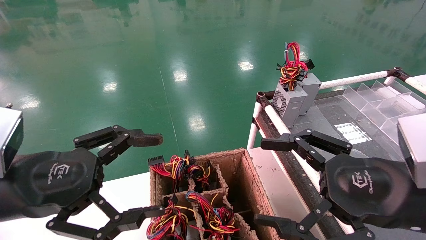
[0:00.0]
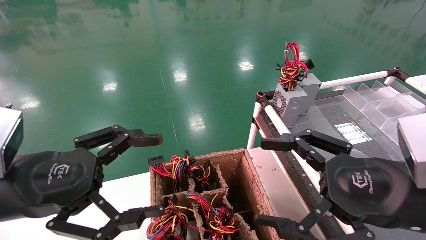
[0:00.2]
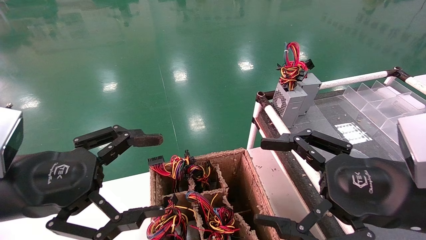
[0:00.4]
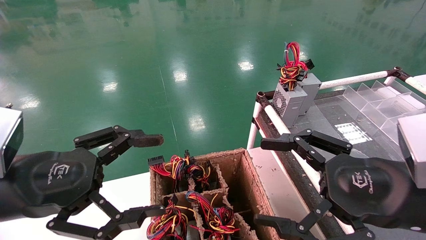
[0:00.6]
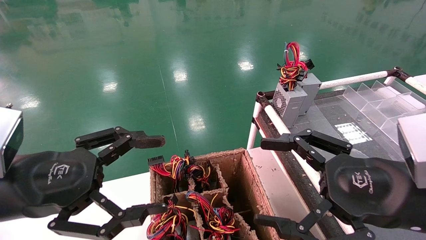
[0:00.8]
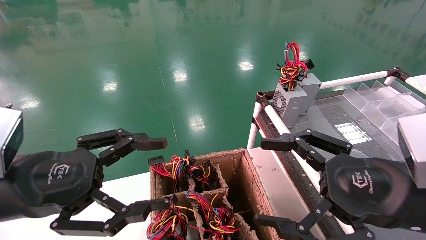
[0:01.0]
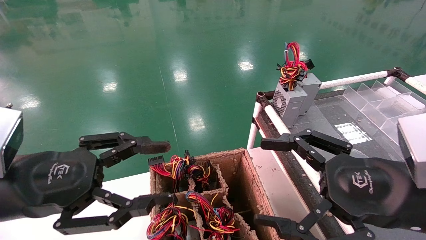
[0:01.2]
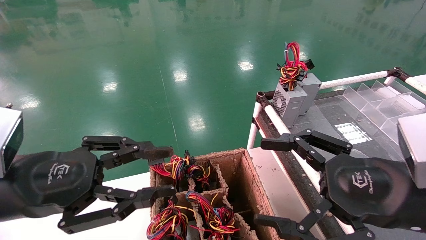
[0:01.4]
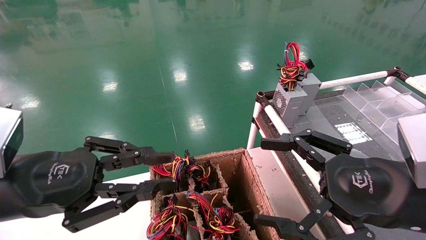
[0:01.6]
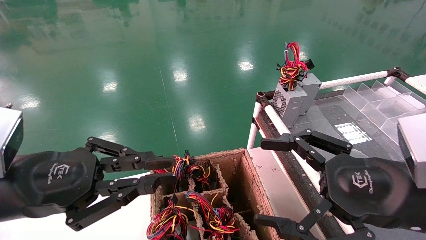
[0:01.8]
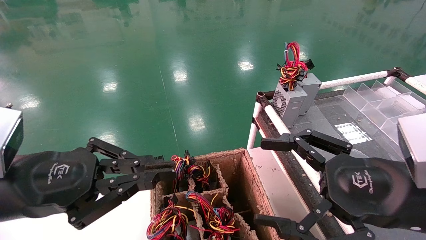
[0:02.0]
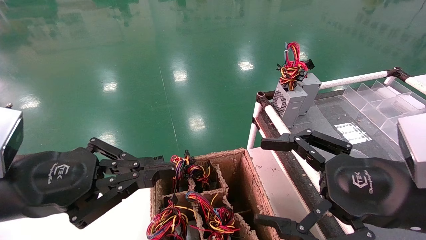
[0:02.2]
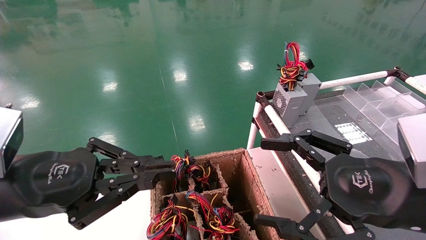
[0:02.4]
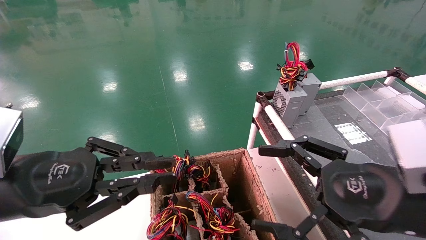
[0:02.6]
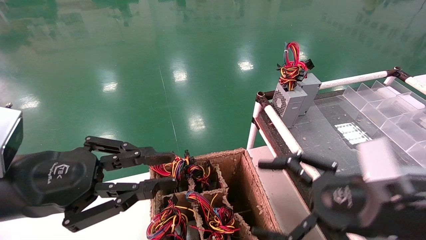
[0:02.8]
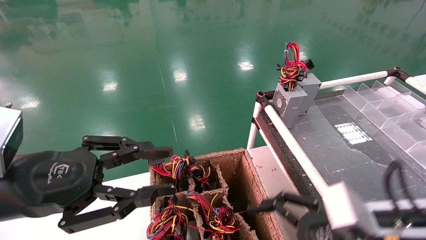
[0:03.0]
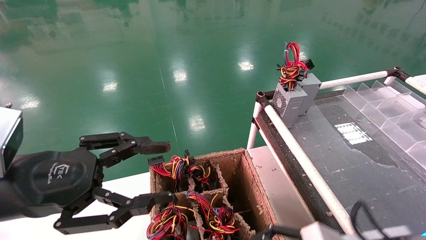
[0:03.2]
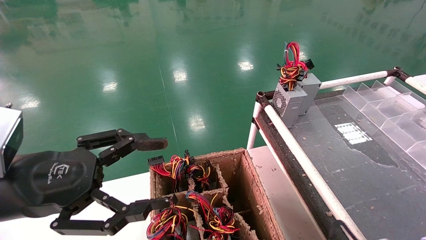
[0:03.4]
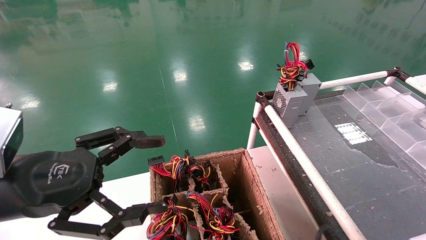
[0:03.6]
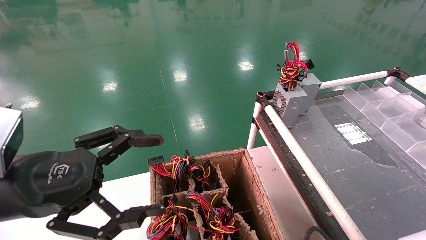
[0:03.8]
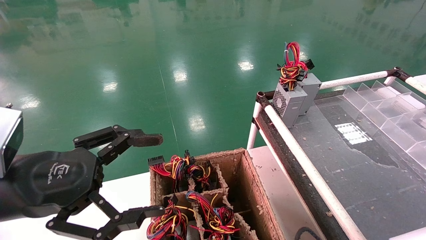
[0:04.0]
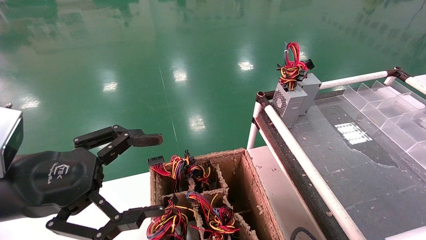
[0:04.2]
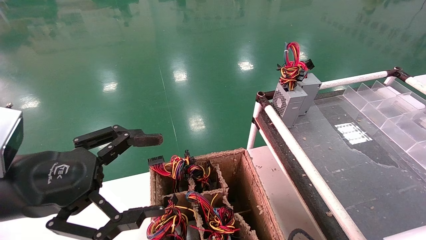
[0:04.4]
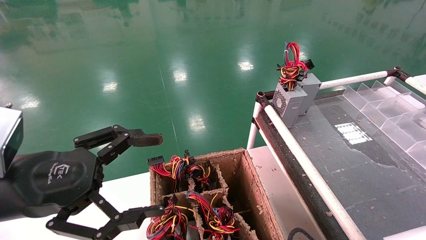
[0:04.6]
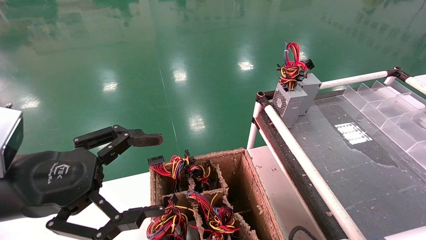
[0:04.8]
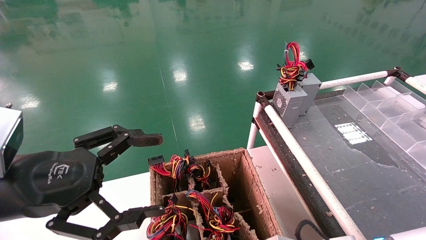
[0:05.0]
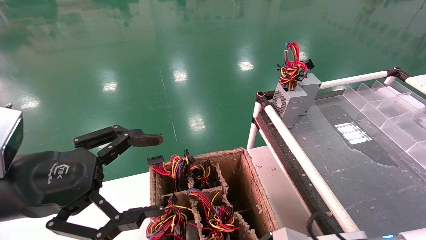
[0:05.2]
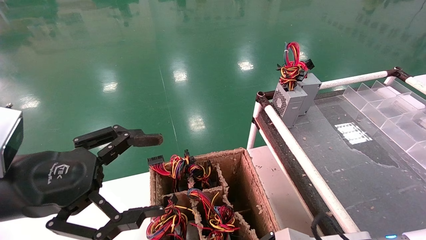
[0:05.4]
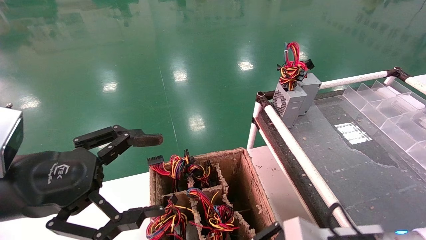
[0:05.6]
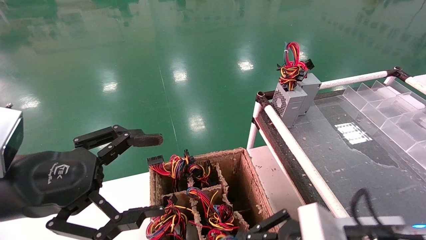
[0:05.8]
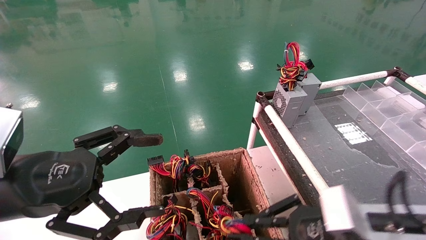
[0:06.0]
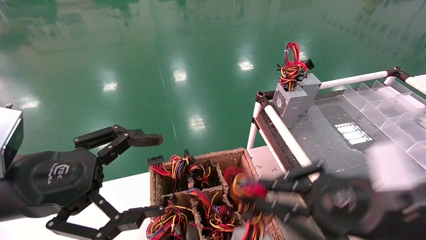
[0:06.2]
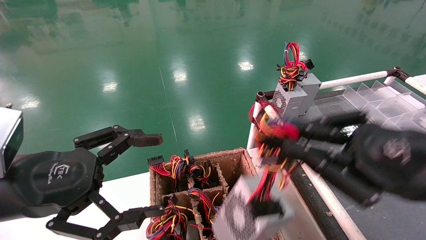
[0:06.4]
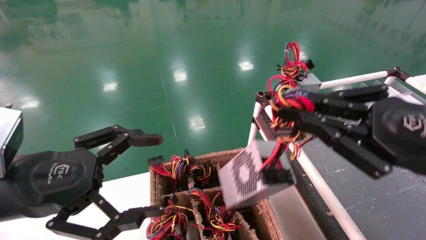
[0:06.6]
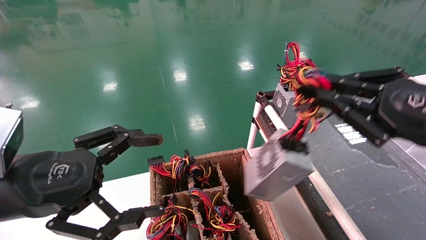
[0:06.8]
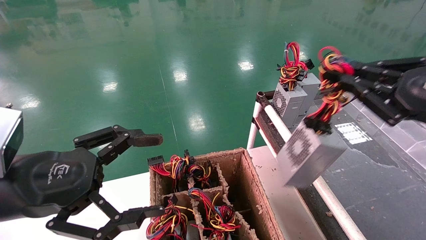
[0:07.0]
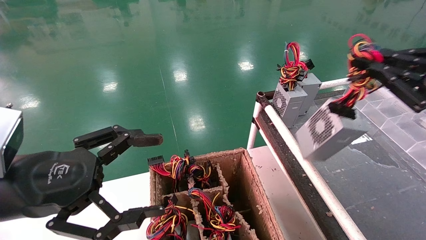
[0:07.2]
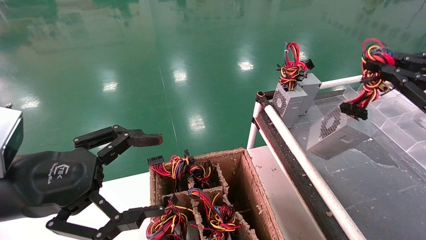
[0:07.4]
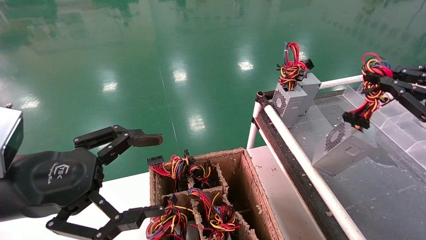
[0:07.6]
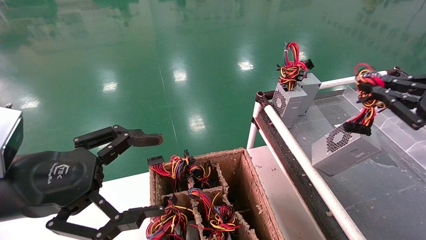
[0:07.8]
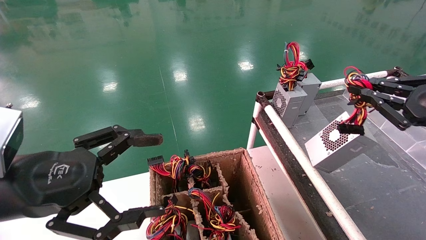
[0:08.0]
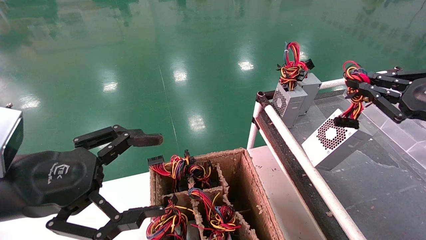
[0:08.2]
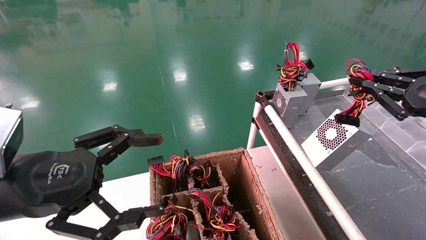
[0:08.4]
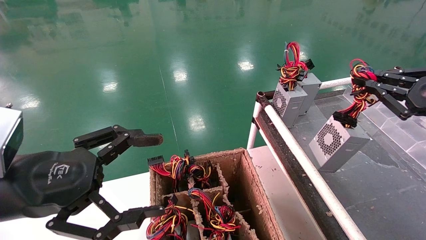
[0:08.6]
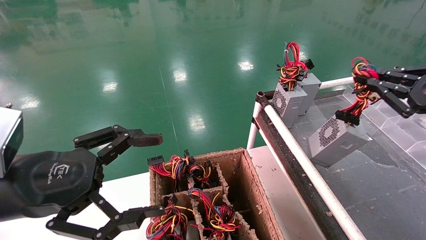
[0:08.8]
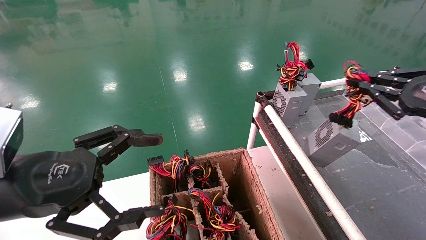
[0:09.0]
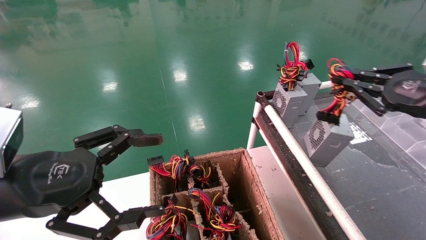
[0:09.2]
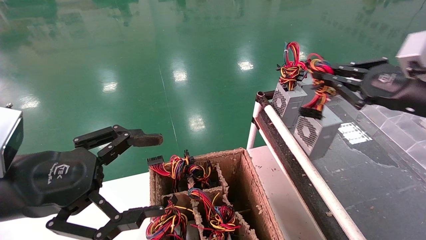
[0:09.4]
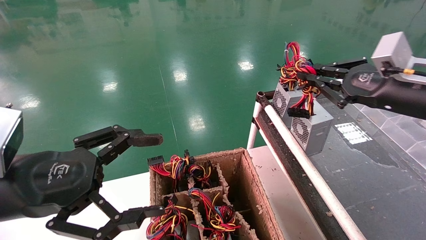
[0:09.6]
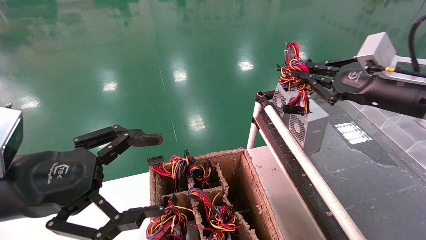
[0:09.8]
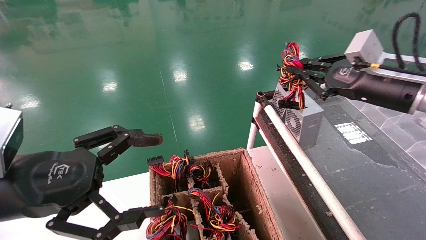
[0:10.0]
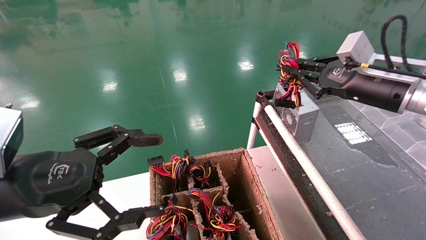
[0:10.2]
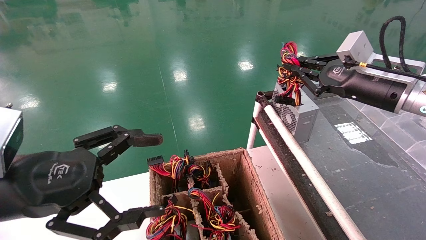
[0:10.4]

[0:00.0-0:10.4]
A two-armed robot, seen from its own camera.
Step, 2.2 to 5.0 s: Grab and lift the power supply from the large box.
0.0 to 1.4 s: The left gripper closes.
1.4 to 3.0 s: The right gripper goes approximately 5 cm downward.
3.0 to 4.4 s: The left gripper opens up. The right gripper is displaced downward by approximately 10 cm, and closes up.
4.4 to 6.0 s: The right gripper is displaced upward by roughly 10 cm, and closes up.
6.0 to 7.4 s: The right gripper is displaced to the right and upward by some 20 cm.
7.4 to 9.0 s: The right gripper travels forward by roughly 5 cm.
9.0 to 10.4 s: The right gripper is displaced to the left and forward by approximately 15 cm.

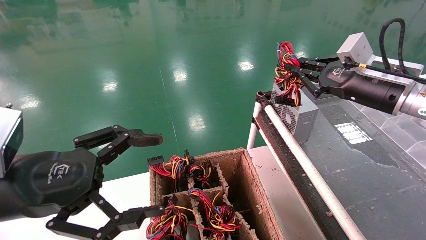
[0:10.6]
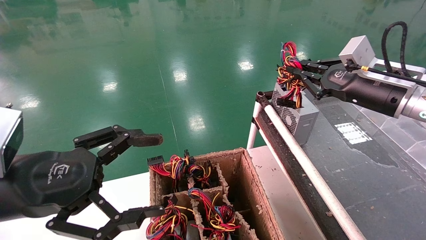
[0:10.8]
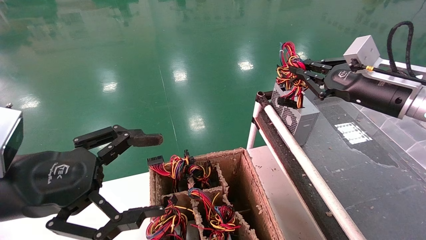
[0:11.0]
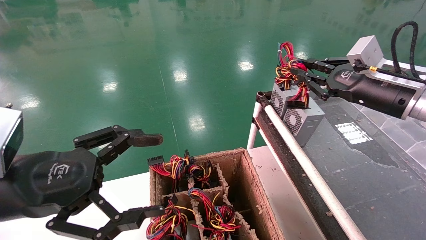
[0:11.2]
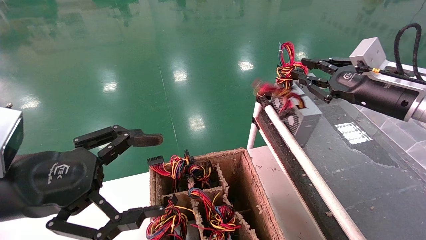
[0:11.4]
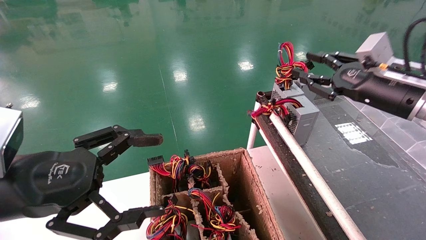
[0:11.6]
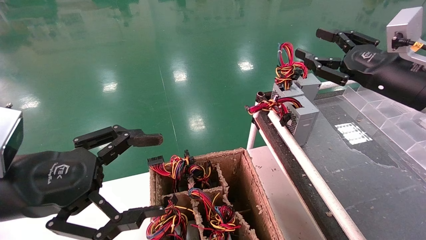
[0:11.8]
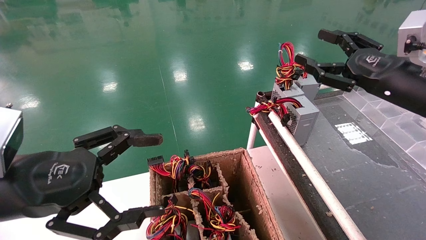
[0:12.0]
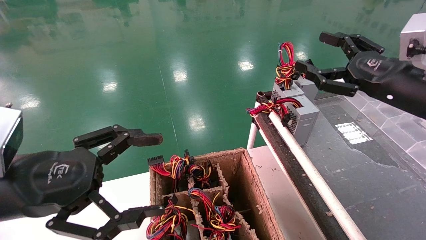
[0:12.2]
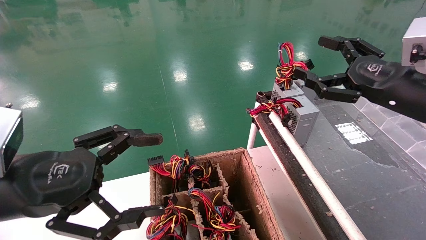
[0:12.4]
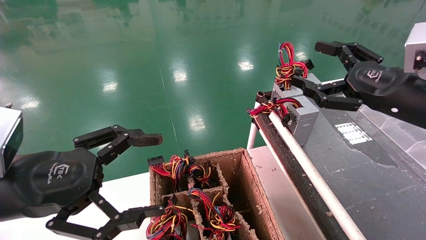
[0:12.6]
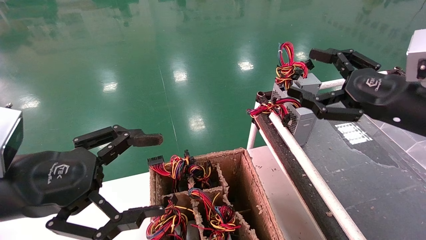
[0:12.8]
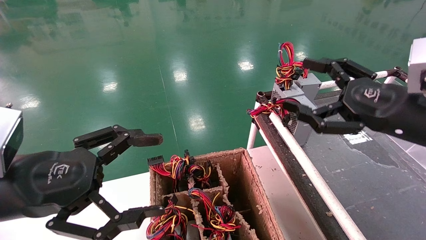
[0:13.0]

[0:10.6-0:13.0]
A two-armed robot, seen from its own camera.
10.6 to 11.8 s: The right gripper opens up.
11.8 to 13.0 s: The right gripper moves backward, some 10 cm, and opens up.

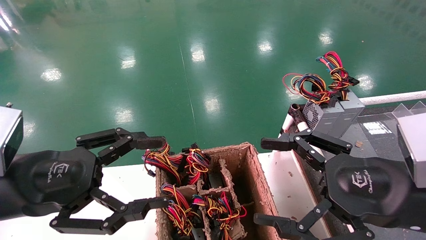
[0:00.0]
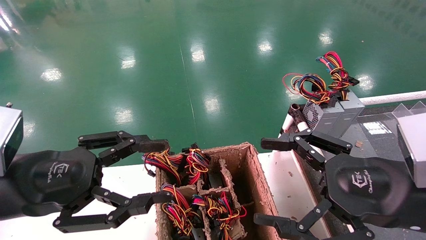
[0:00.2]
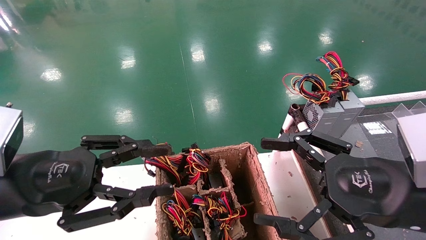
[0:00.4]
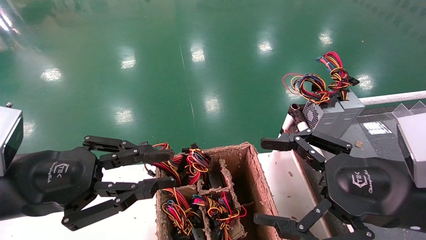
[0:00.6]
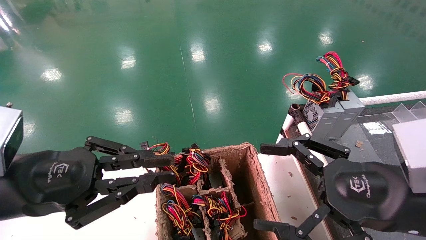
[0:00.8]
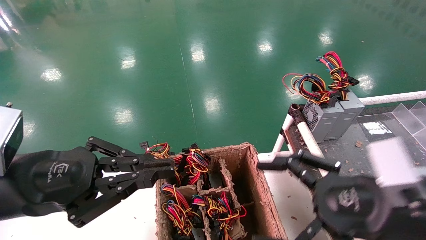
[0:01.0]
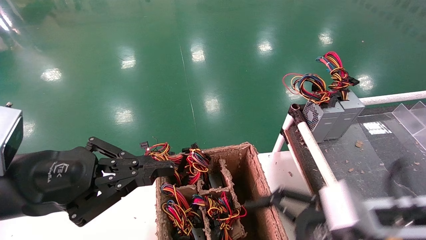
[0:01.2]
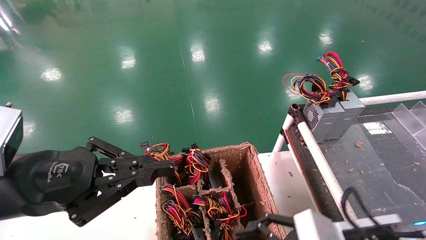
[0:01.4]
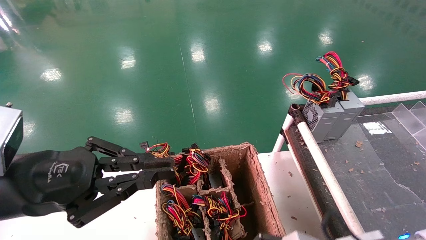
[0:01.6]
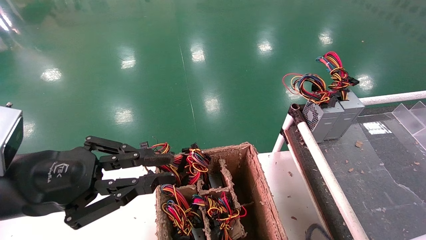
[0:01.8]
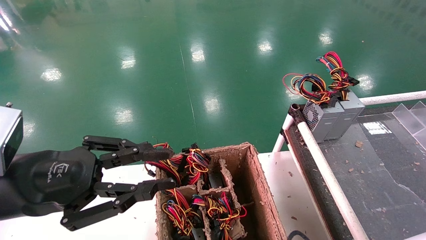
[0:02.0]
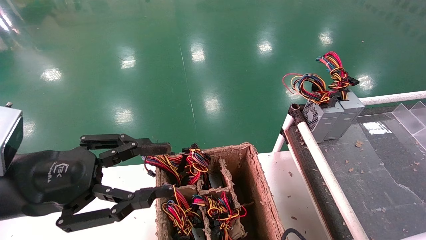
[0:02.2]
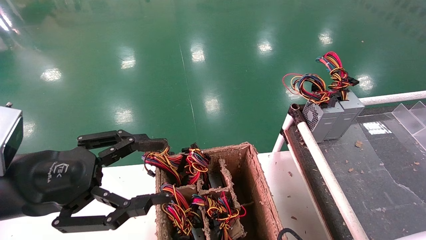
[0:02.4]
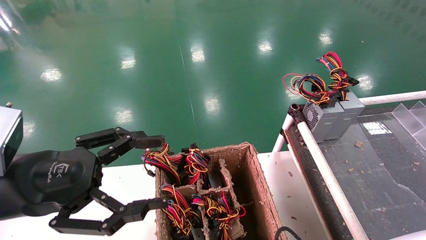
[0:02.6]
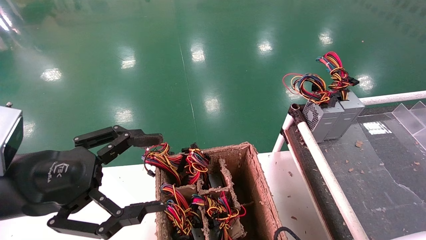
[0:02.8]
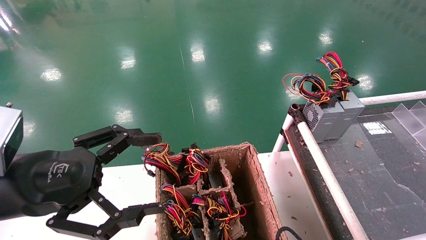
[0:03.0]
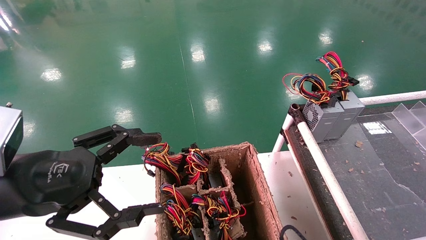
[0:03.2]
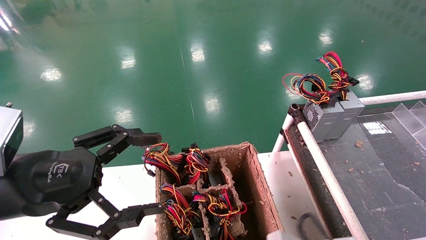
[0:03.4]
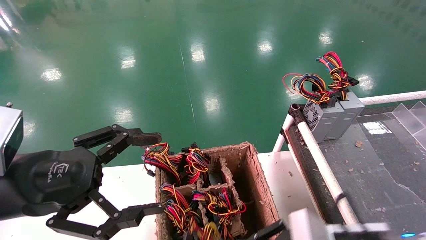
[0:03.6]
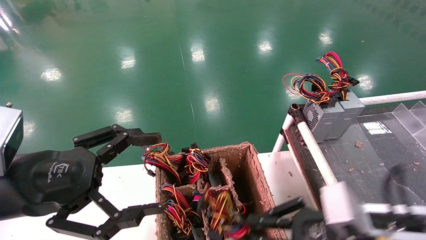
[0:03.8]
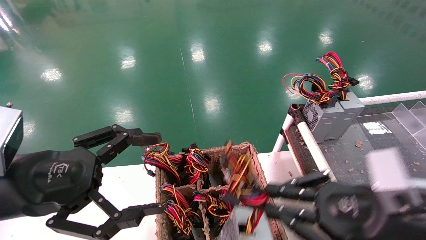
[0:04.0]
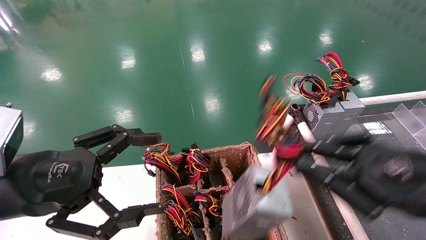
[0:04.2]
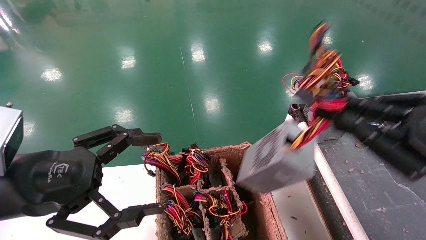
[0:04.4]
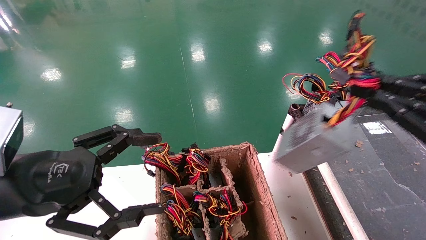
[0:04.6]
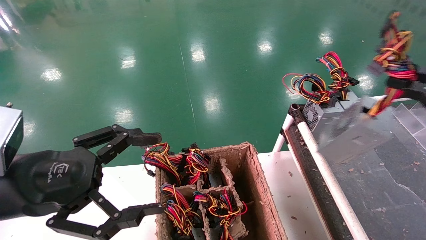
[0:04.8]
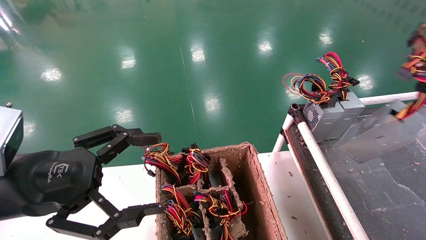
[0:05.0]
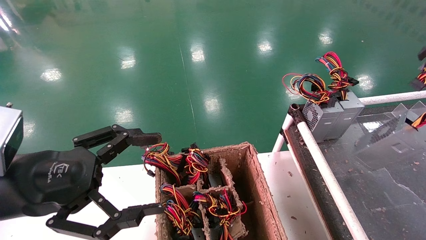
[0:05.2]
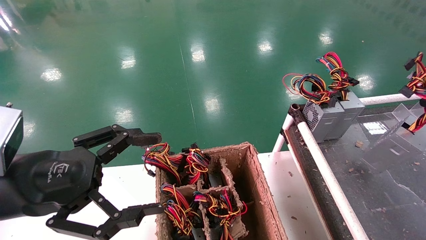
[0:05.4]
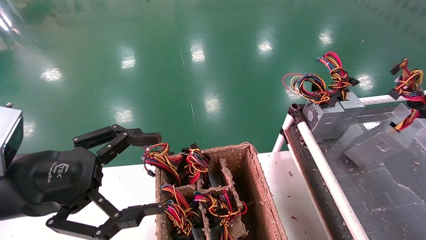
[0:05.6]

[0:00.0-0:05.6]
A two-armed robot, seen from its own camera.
Step, 1.2 to 3.0 s: Grab and lift the power supply from the large box.
0.0 to 1.4 s: The right gripper travels downward by roughly 10 cm. The left gripper closes.
1.4 to 2.8 s: The left gripper opens, while the right gripper heads downward, covering approximately 10 cm, and closes.
2.8 to 4.2 s: The right gripper goes some 20 cm upward and to the right.
4.2 to 5.6 s: The right gripper heads to the right, covering some 20 cm.
